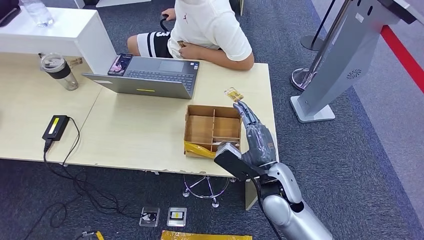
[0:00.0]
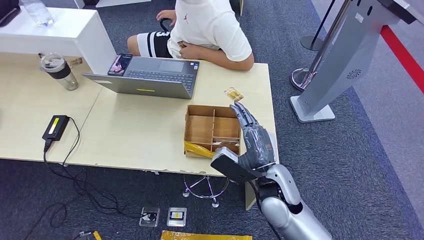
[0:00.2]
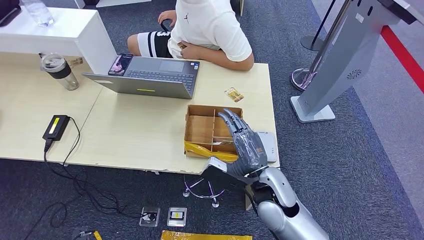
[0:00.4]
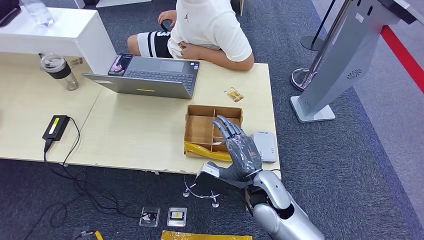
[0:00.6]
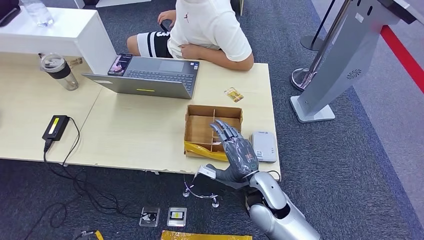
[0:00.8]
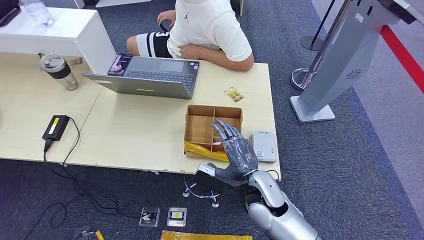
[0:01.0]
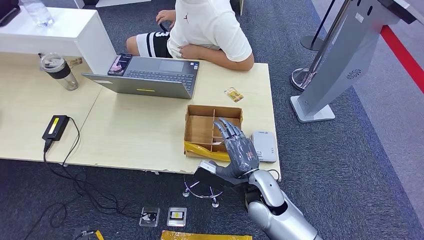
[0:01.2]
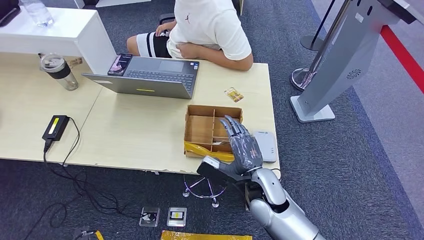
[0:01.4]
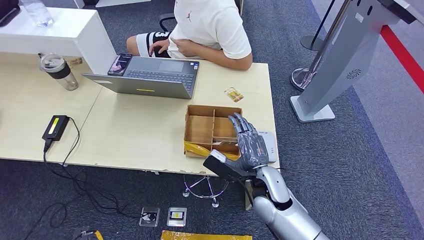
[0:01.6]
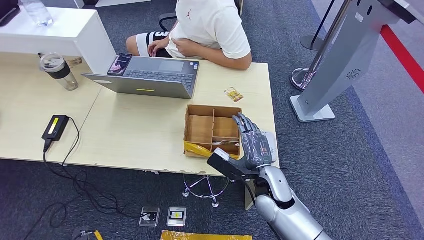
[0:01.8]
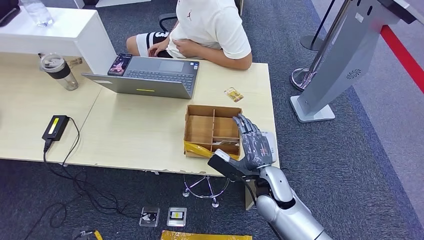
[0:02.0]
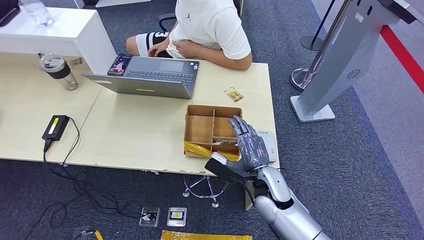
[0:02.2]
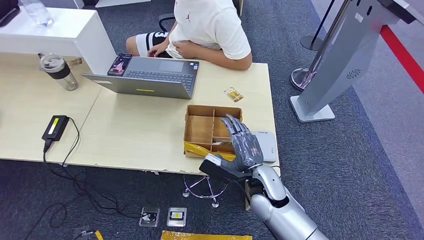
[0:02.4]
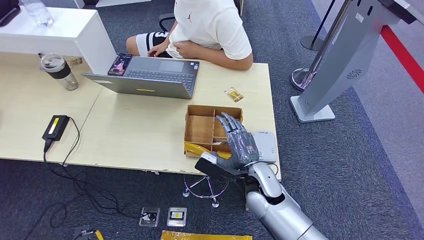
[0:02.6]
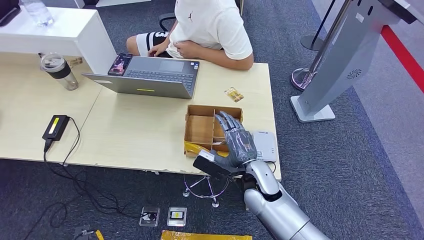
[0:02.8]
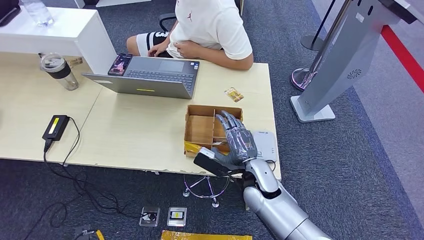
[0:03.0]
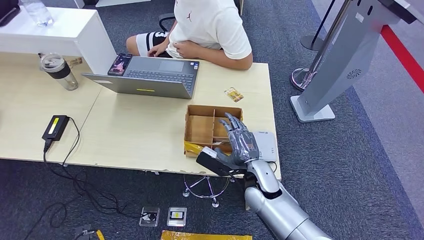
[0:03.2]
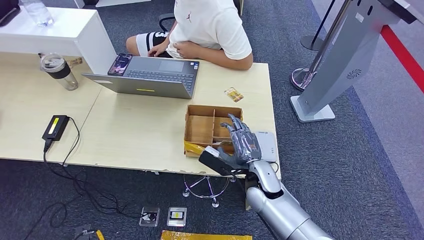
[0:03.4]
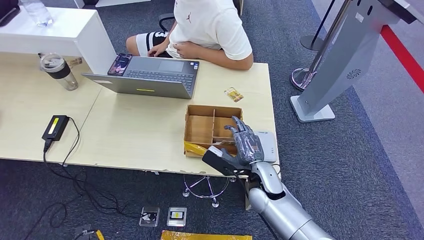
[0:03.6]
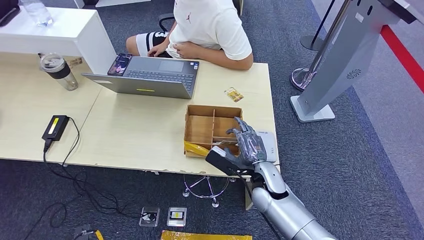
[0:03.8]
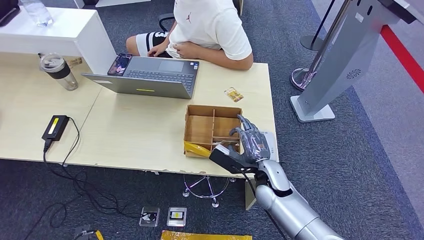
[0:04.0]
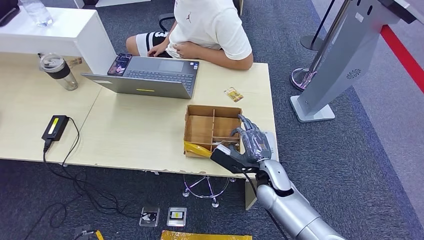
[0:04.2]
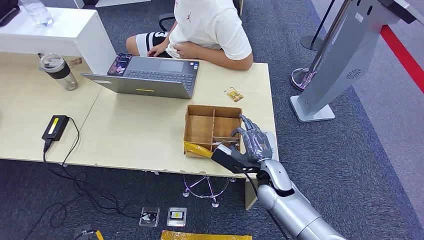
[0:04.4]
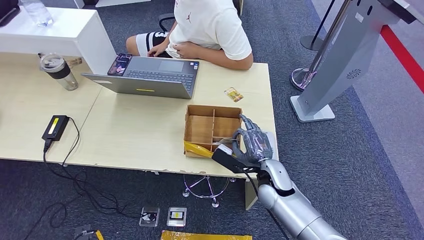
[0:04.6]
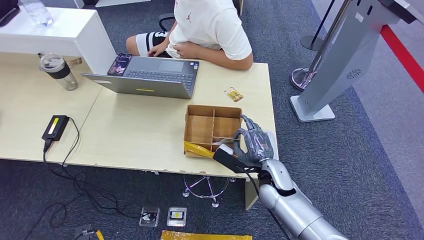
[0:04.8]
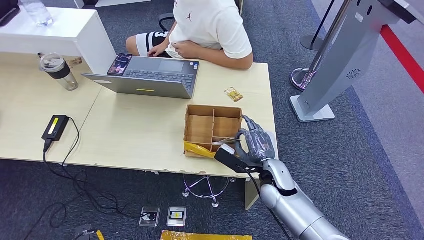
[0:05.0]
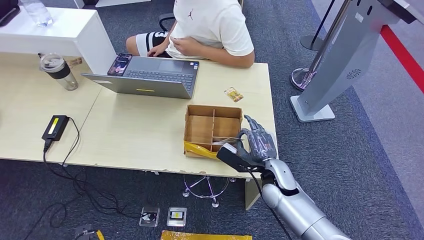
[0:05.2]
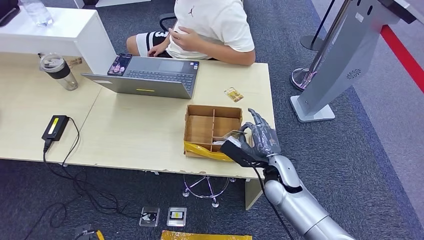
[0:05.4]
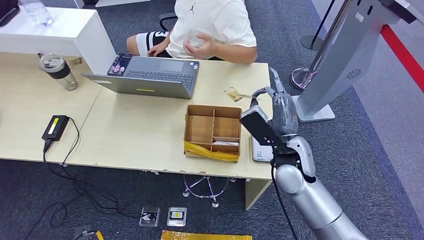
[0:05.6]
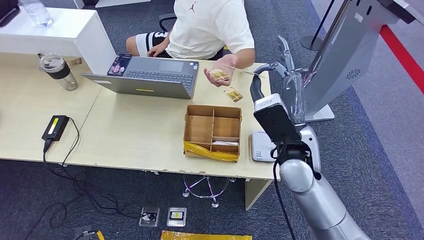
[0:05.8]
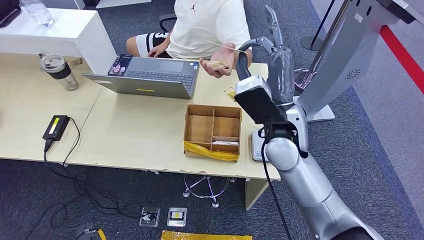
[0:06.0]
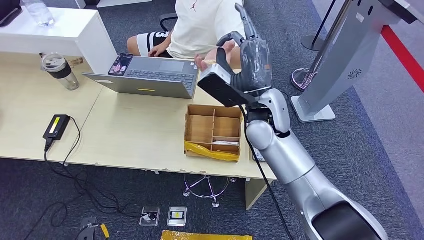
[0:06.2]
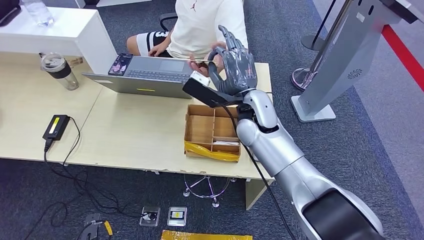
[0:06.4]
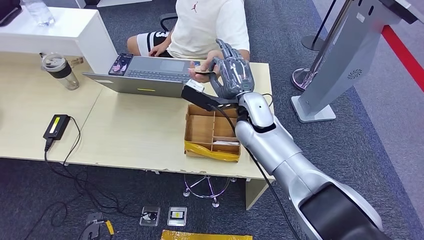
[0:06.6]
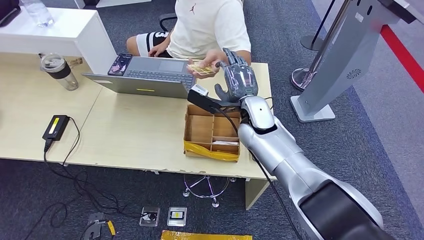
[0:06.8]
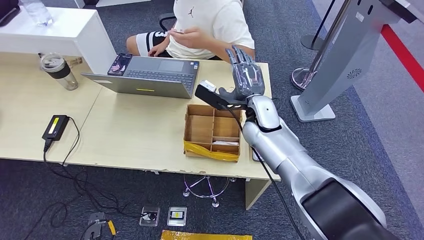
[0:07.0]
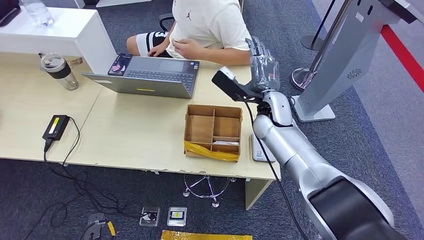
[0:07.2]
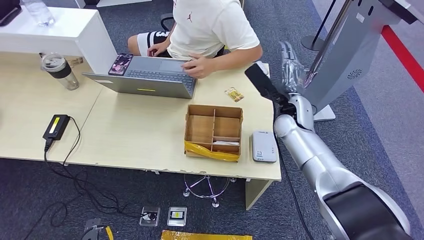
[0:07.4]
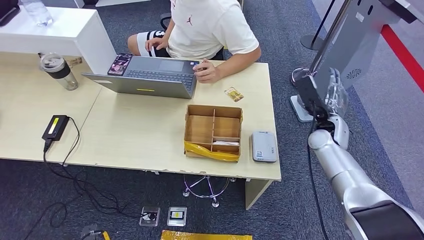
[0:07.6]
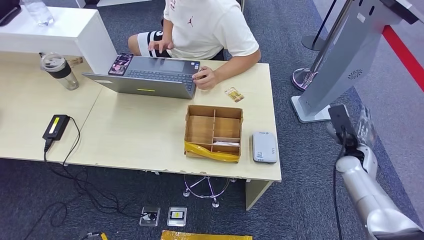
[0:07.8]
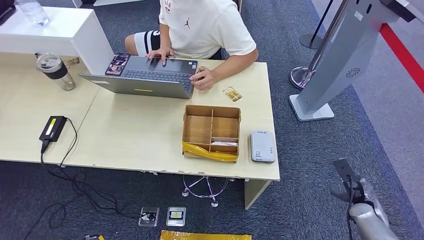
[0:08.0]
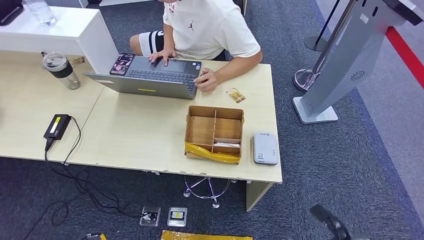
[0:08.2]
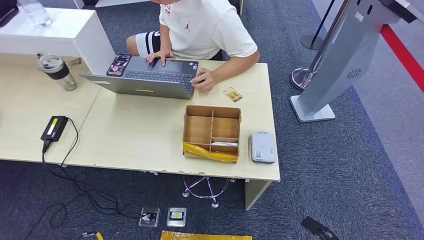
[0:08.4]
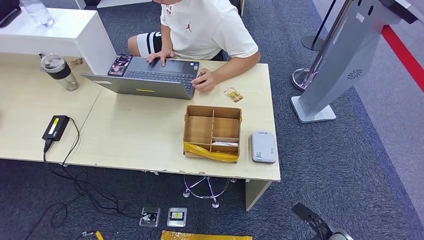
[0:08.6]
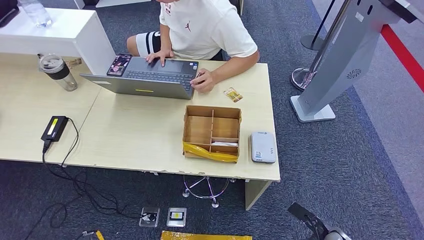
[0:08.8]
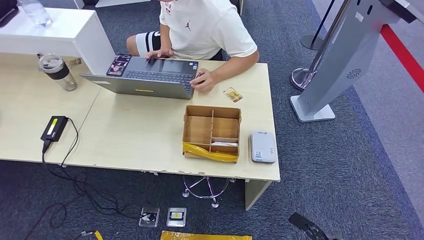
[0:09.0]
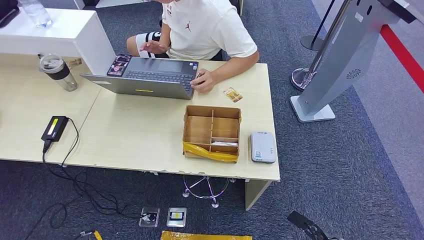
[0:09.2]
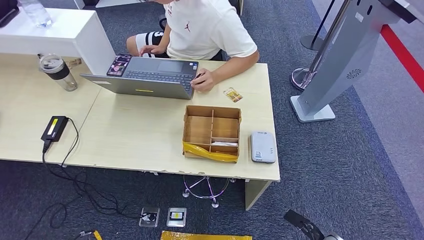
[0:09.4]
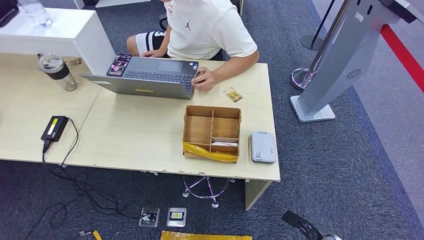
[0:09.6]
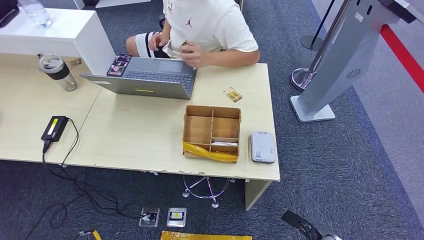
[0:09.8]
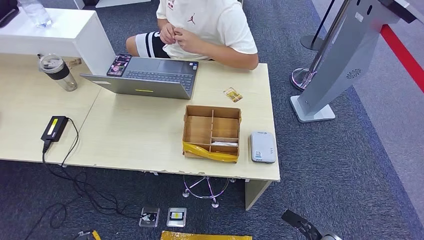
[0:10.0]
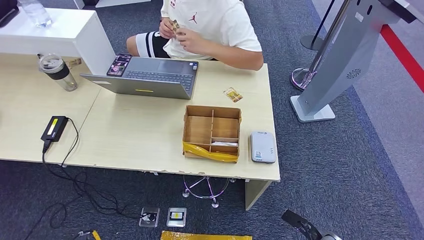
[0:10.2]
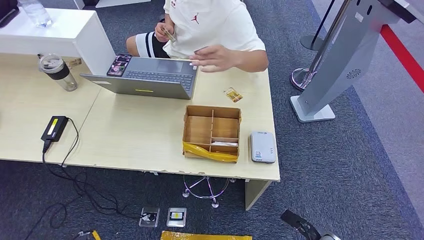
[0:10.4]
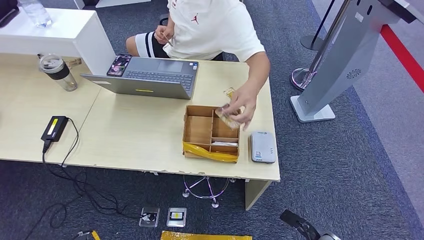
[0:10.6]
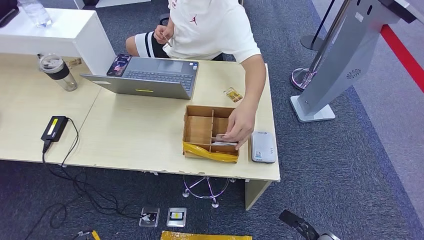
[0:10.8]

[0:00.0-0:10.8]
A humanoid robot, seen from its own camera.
Step, 0:00.6 to 0:06.4: Pick up the room key from the key card box.
Step, 0:06.6 to 0:10.8: Hand the room key to the person.
0:00.0 to 0:01.6: The hands make only small movements.
0:01.6 to 0:04.6: There are only small adjustments of the hands.
0:04.6 to 0:06.2: The right hand goes approximately 20 cm upward.
0:07.8 to 0:09.2: The right hand moves backward and downward, roughly 30 cm.
0:09.2 to 0:10.8: The hands make only small movements.
